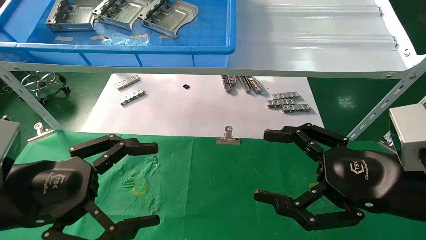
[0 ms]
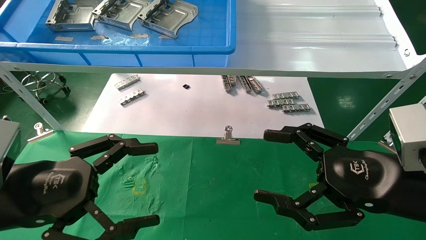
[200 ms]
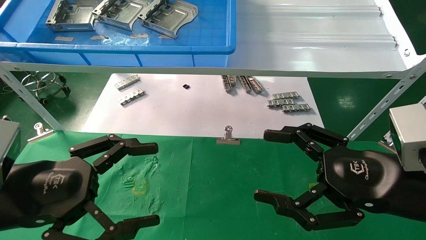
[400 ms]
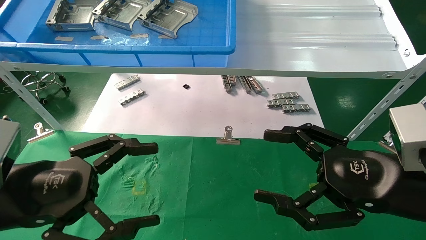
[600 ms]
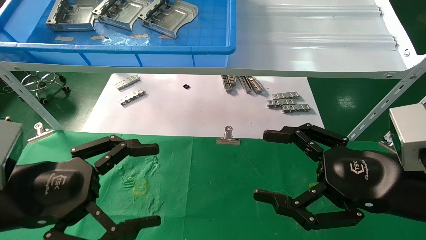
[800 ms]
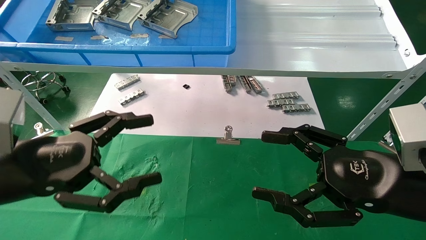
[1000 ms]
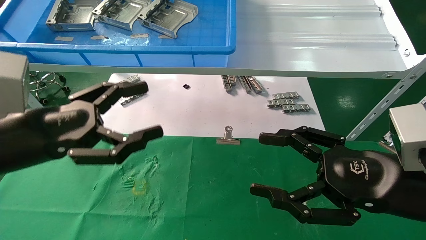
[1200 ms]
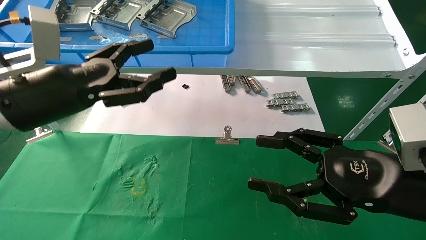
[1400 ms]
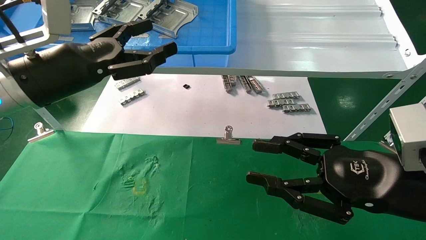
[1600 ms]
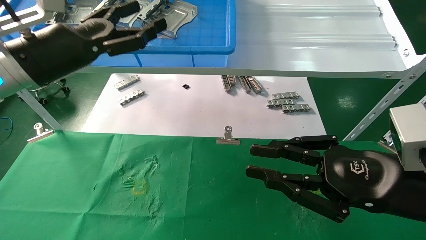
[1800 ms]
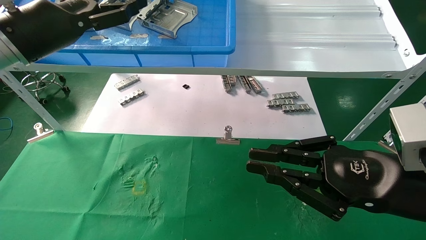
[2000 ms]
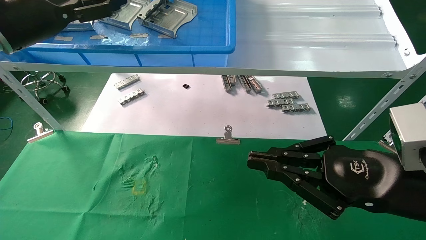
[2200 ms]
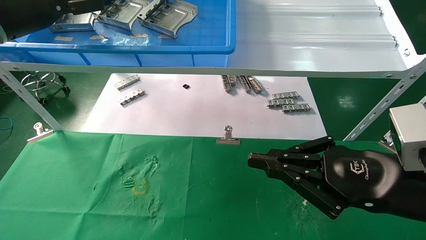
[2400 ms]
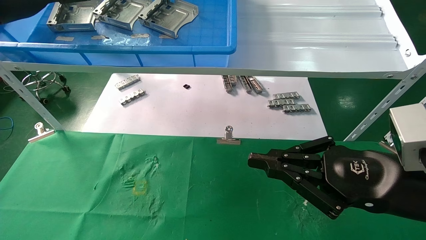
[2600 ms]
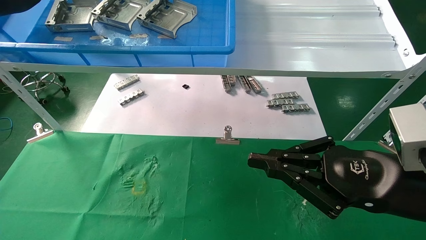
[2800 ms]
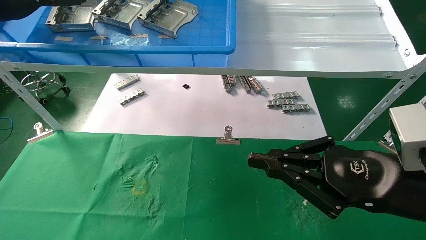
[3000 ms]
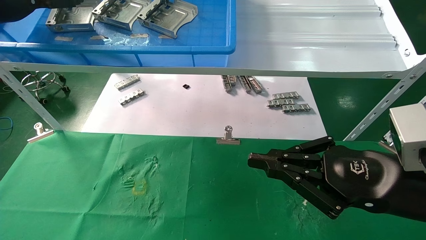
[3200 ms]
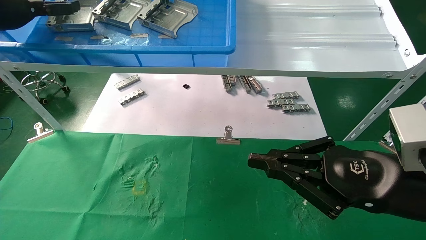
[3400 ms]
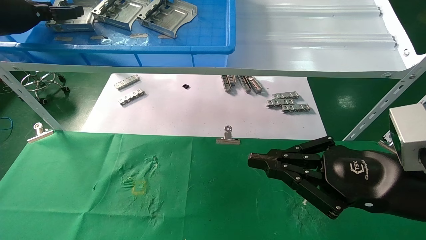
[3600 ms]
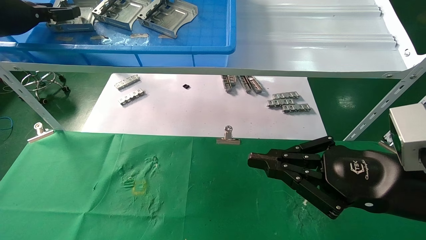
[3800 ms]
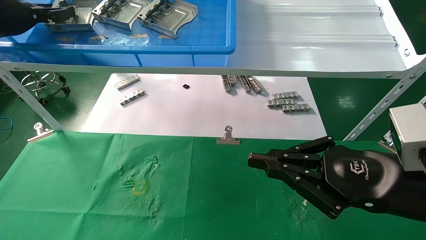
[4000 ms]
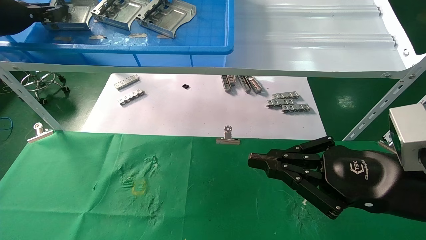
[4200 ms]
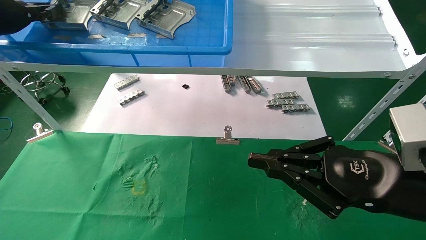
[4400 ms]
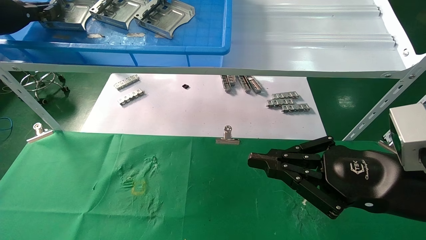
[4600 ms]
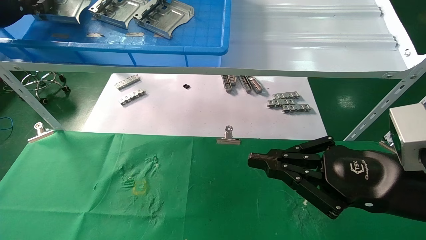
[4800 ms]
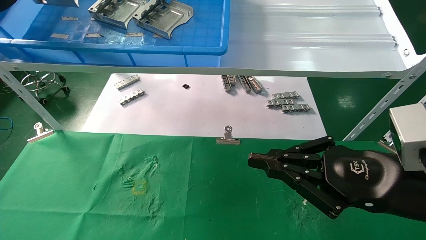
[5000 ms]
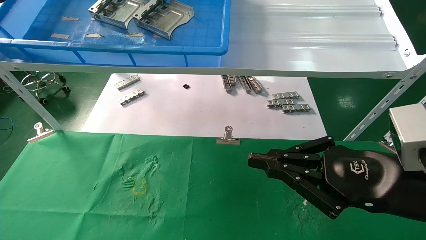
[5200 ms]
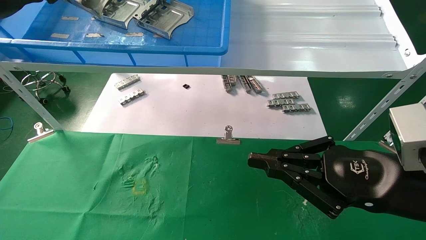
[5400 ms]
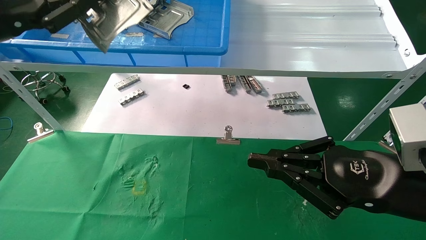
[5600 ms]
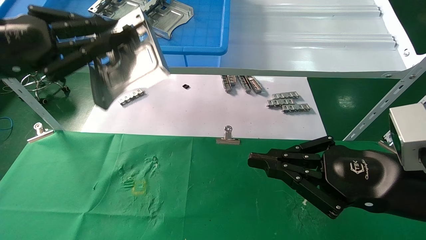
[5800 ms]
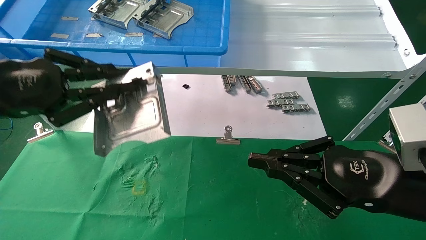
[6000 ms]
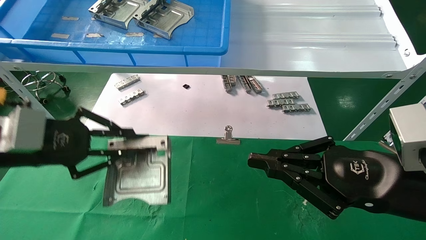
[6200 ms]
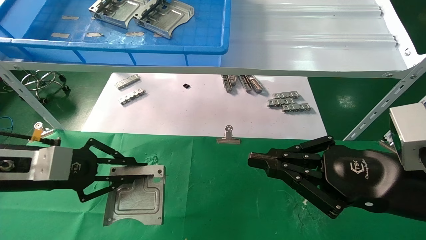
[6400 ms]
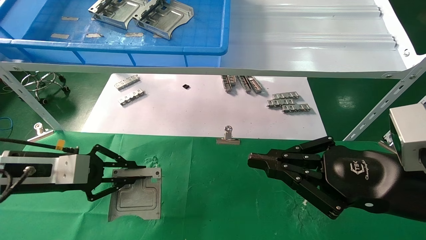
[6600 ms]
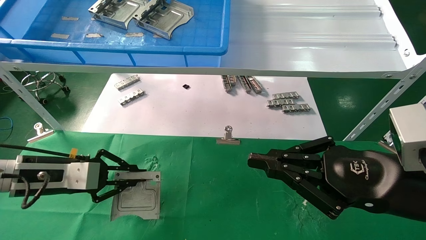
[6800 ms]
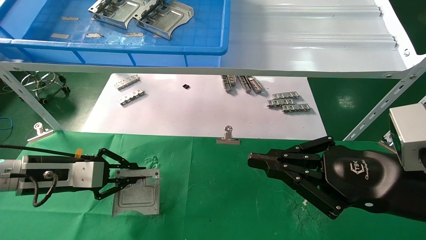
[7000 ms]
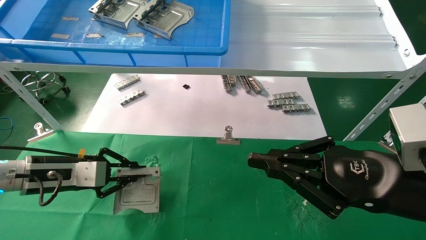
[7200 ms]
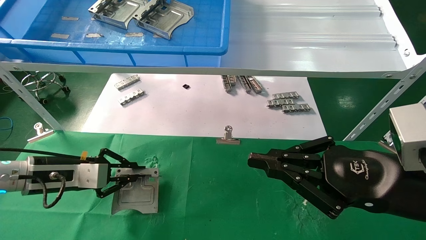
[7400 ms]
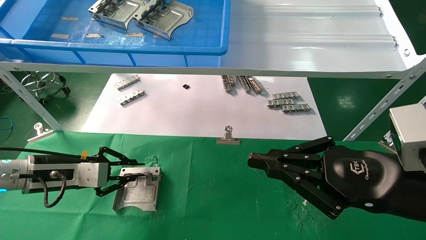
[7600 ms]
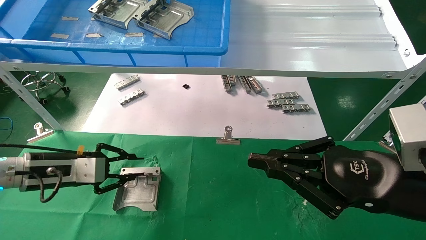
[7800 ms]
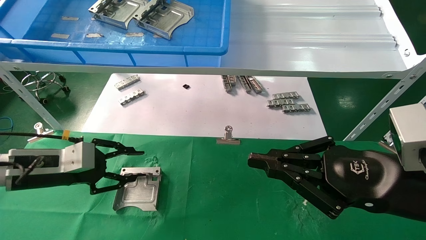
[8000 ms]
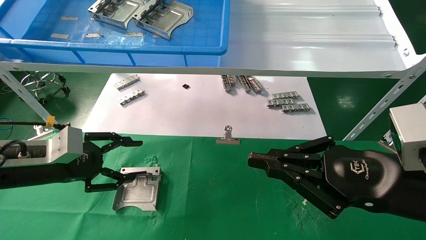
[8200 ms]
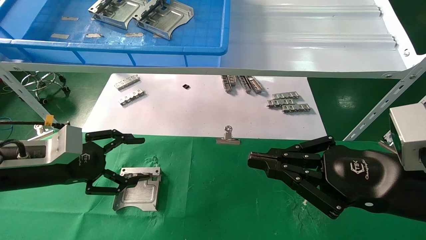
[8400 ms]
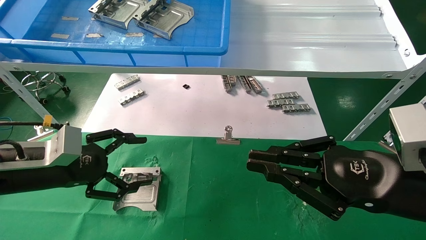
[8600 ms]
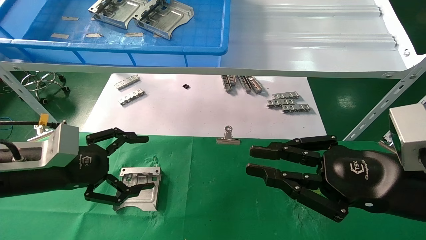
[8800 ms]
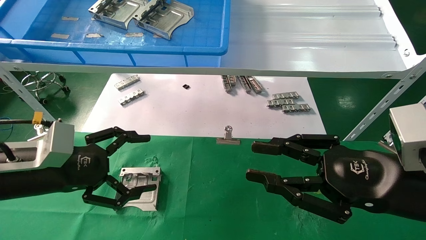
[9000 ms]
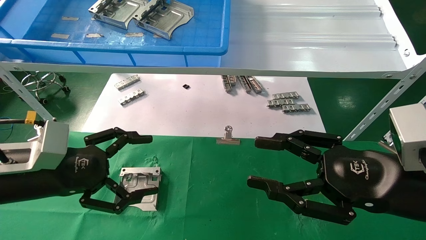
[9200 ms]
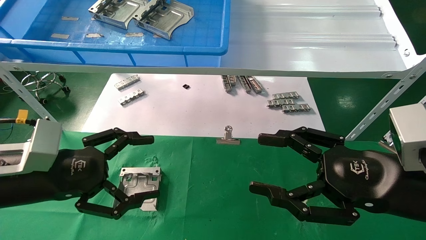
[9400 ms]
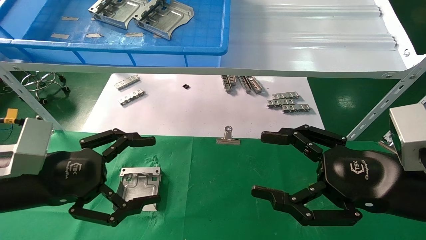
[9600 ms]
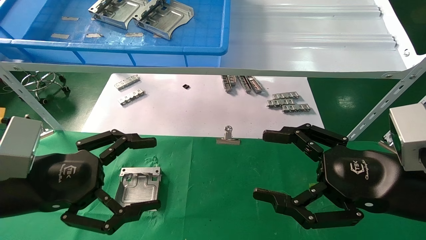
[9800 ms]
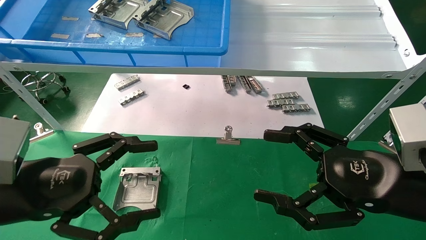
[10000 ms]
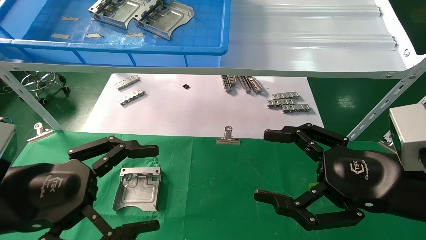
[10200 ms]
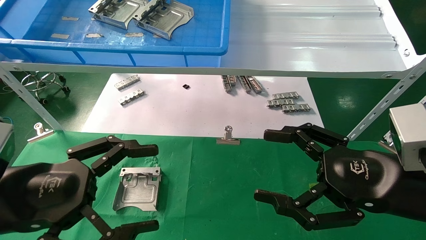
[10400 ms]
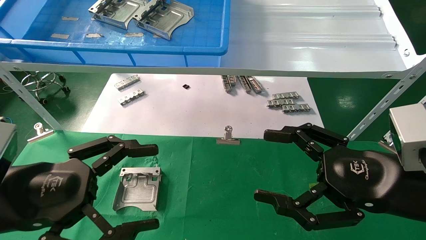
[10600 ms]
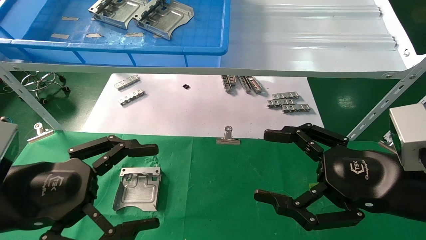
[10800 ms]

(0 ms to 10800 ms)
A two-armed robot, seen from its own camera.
Task of the whole recording: use the mechanical arm to pick up the parts and place them on the table.
Step, 1200 ms - 4400 ms: Pick up the hard drive bracket from the feeding area.
Step, 4600 ms - 7800 ms: Place the hard drive bracket into the box.
0 ms - 1600 ms: The left gripper shifts roughly 15 cm forward and upward. Meanwhile the right gripper closes its fingers.
1600 ms - 3000 ms: The left gripper shifts approximately 20 cm upward, to the left and forward. Meanwhile the right gripper closes.
3000 ms - 4600 ms: The left gripper closes.
4600 ms - 6200 ms: The left gripper travels downward, backward and to the right by approximately 25 cm.
6200 ms - 7800 ms: The left gripper goes some 10 cm downward and forward.
7800 ms - 9200 ms: The right gripper opens, while the left gripper moves backward, some 10 cm, and opens.
9200 ms - 10800 ms: The left gripper goes some 5 cm backward; the right gripper opens its fingers.

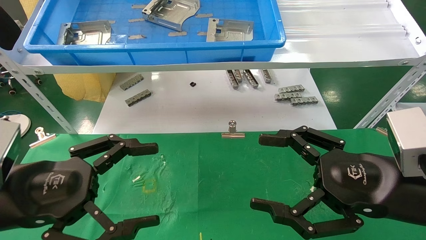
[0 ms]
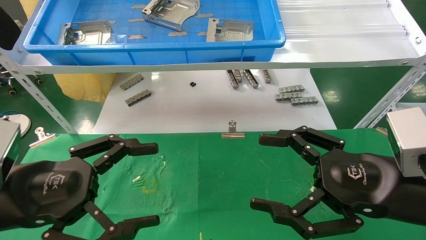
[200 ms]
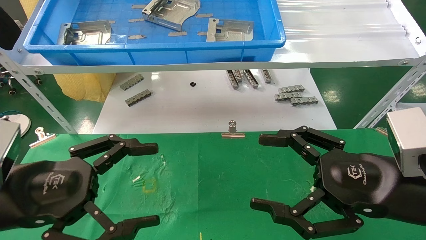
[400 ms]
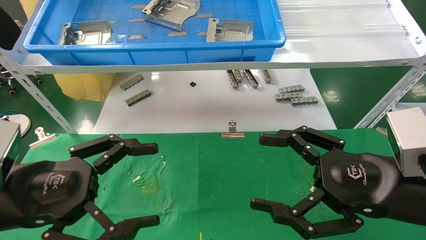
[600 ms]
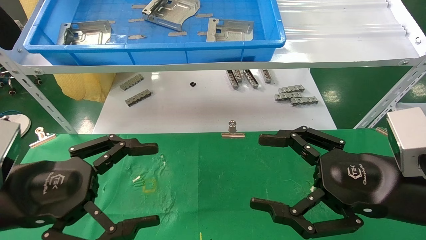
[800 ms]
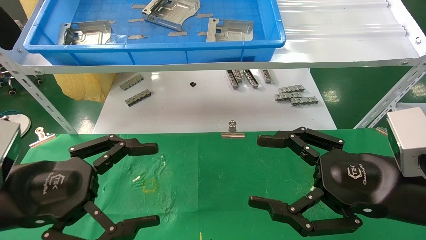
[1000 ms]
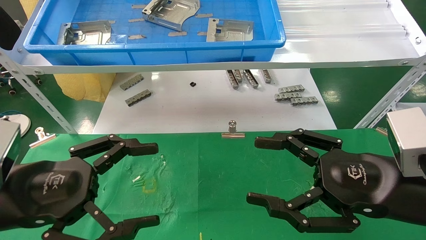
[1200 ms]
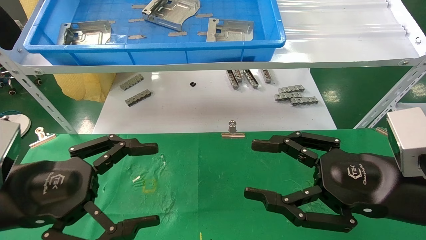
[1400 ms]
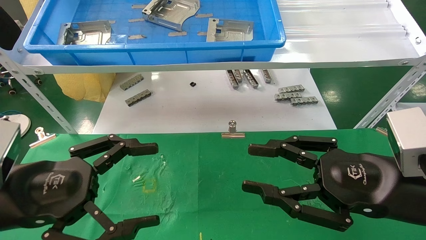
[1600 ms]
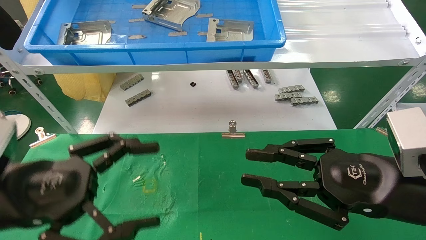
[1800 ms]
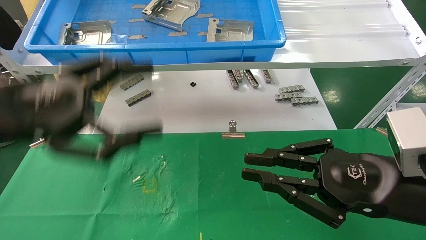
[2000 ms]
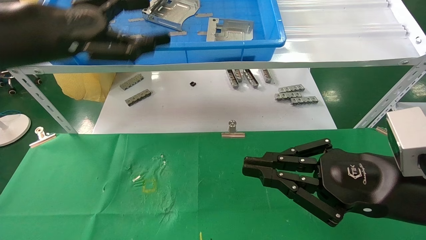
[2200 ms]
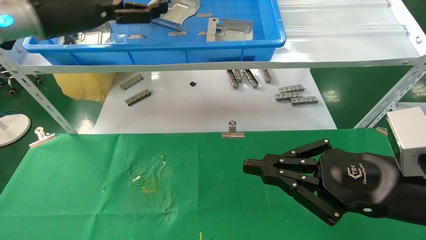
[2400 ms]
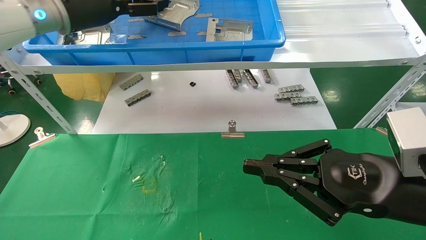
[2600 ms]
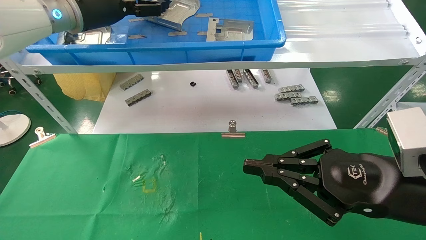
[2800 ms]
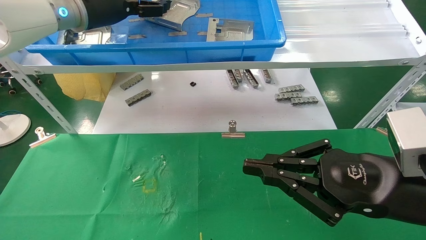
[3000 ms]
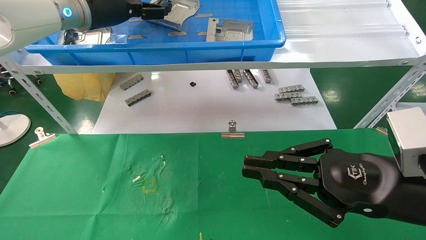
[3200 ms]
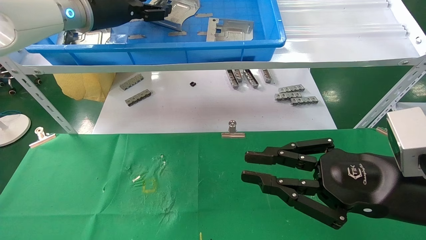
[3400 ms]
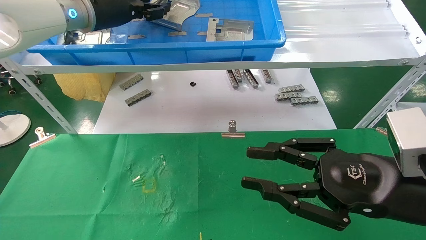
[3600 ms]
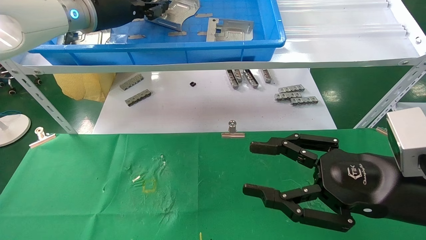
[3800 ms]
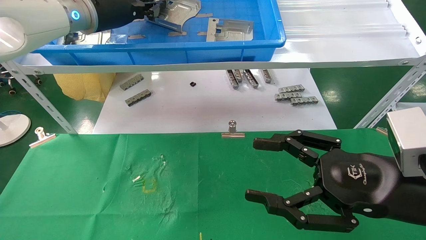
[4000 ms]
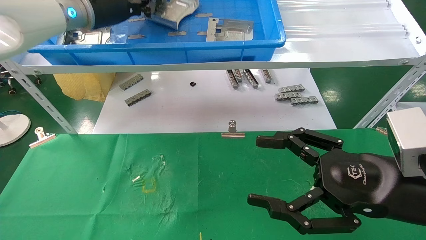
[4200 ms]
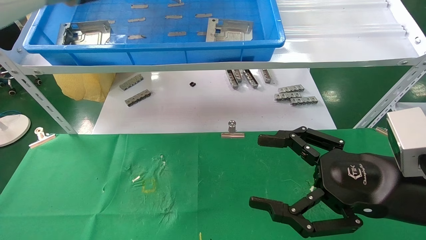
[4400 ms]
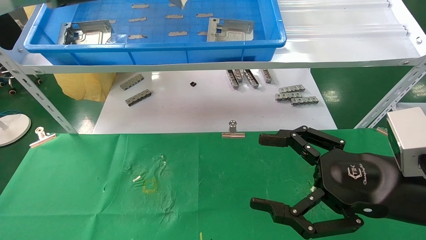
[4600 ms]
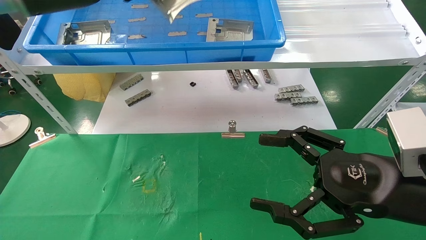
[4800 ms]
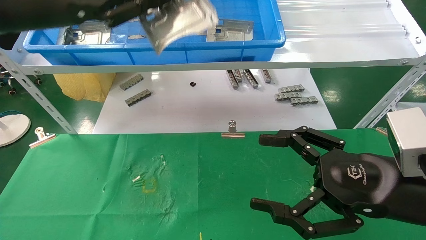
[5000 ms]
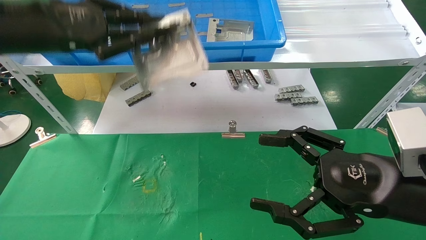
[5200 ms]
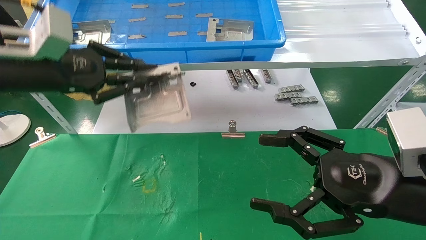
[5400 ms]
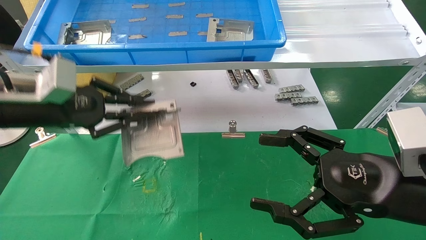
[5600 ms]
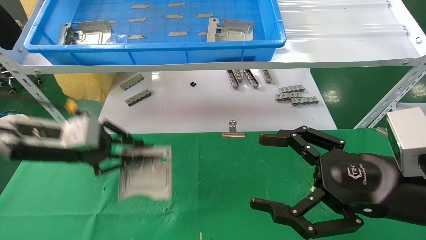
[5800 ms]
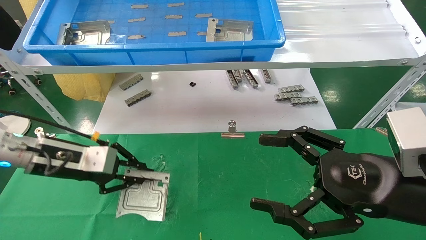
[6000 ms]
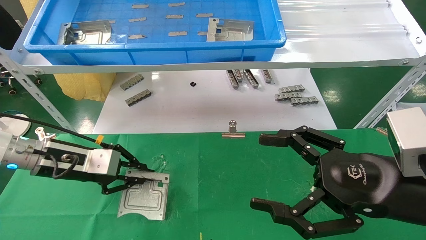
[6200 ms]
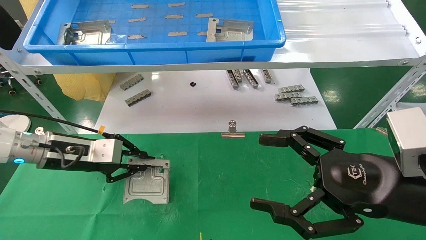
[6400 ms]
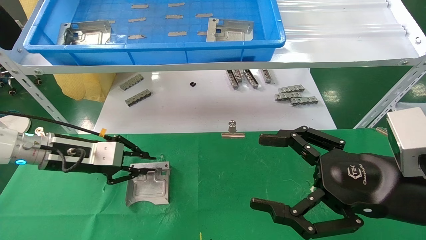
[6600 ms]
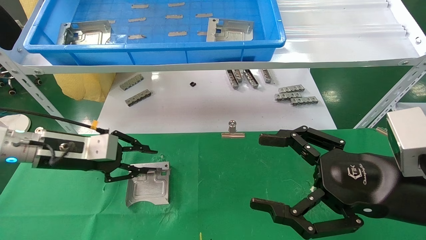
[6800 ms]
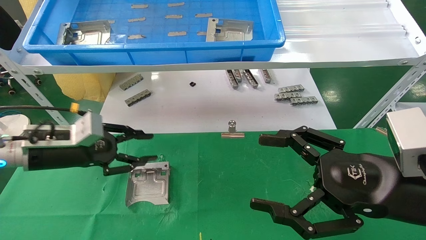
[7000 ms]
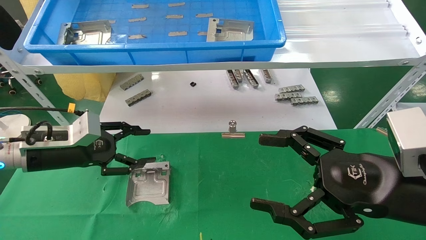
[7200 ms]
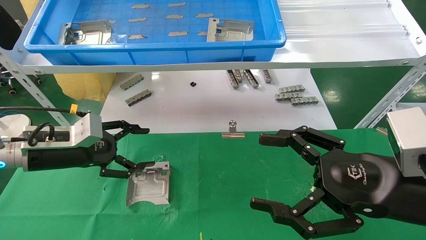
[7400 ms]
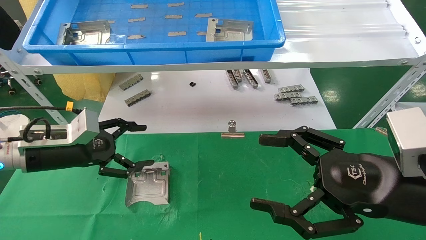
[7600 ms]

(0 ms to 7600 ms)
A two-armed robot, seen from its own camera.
Task of the whole recording: use the mechanical arm to pick up the parts and place them on the table.
Step, 2000 ms - 4400 ms: Pick up the hard drive bracket from the feeding area.
Step, 4600 ms - 7200 ms: Place the hard drive bracket into the box.
0 ms - 1600 ms: The right gripper closes its fingers.
1600 ms - 3000 ms: The left gripper shifts approximately 30 cm forward and upward, while the right gripper closes.
3000 ms - 4600 ms: The left gripper shifts approximately 5 cm backward, and closes up; the right gripper opens up.
4600 ms - 6000 ms: The left gripper shifts some 25 cm downward.
6000 ms - 7600 ms: The left gripper opens.
